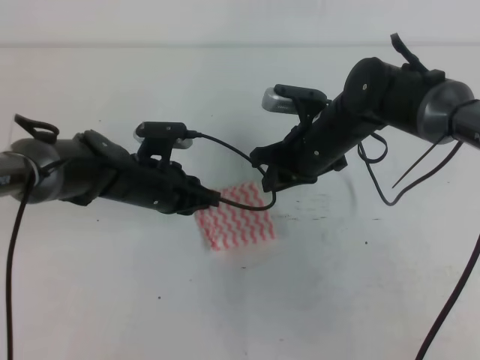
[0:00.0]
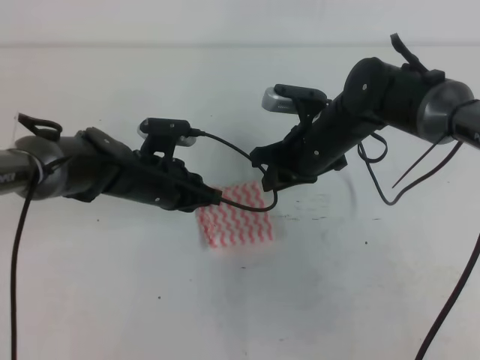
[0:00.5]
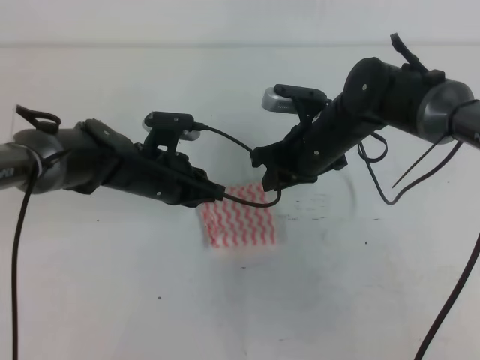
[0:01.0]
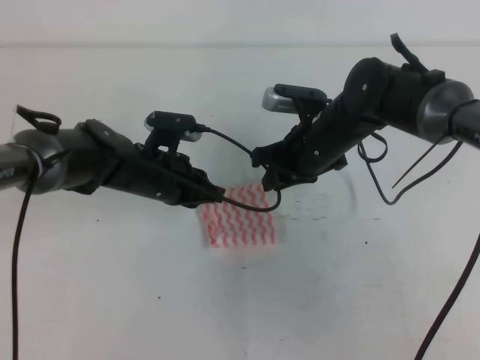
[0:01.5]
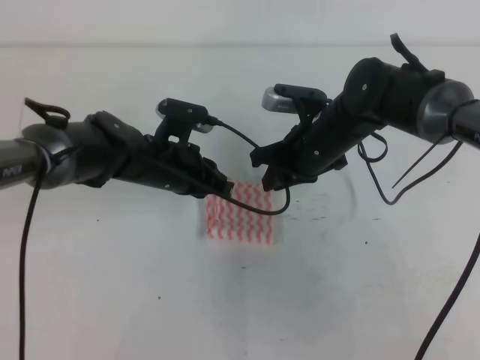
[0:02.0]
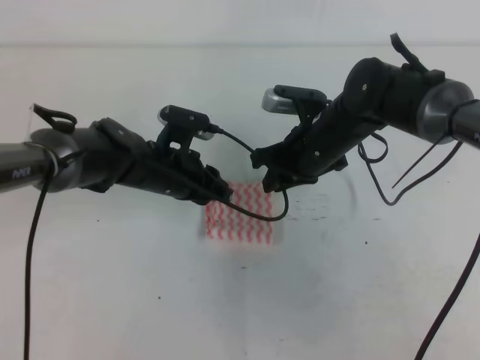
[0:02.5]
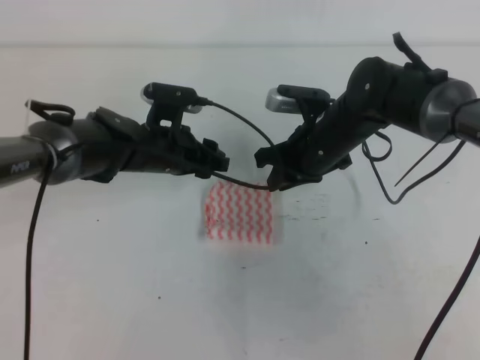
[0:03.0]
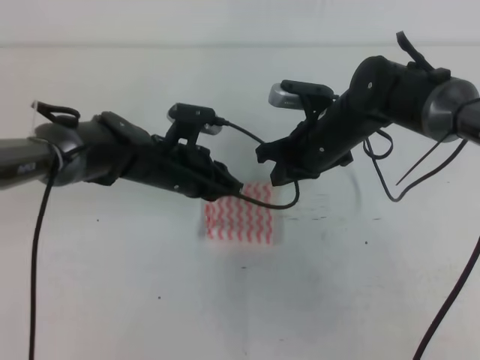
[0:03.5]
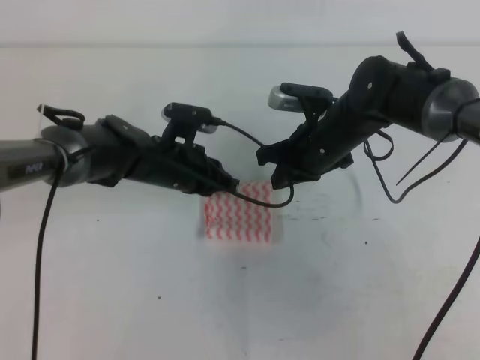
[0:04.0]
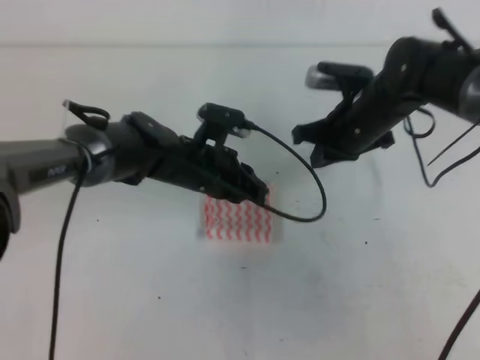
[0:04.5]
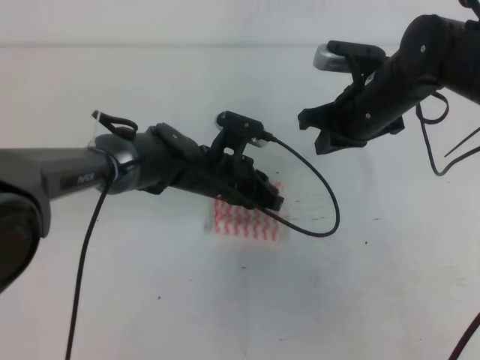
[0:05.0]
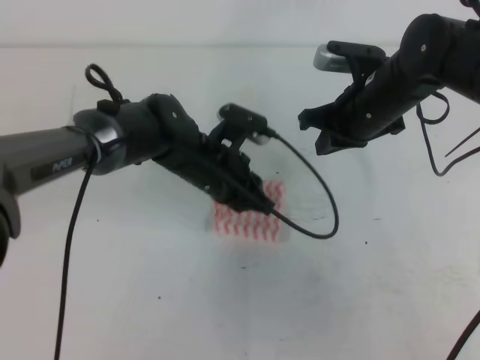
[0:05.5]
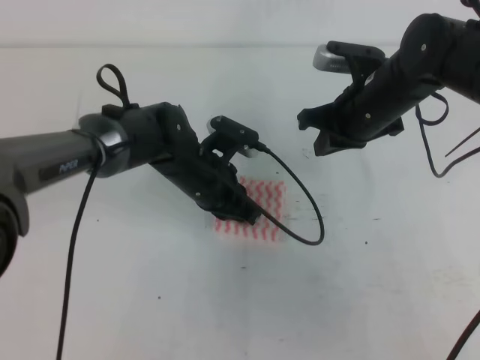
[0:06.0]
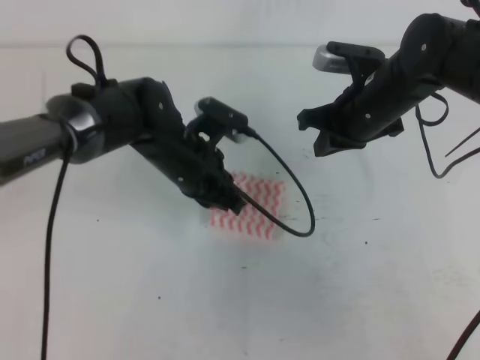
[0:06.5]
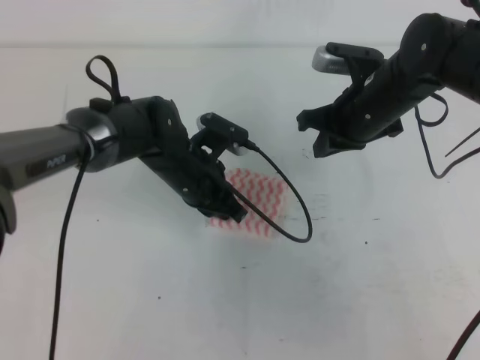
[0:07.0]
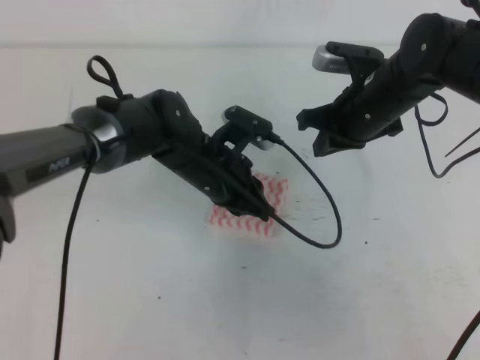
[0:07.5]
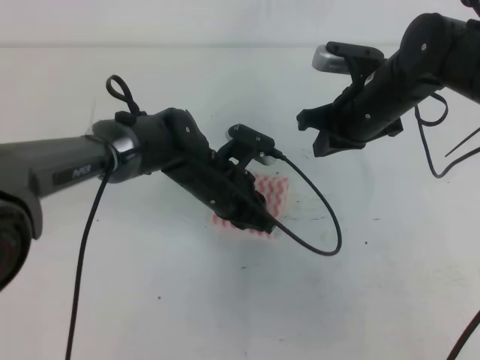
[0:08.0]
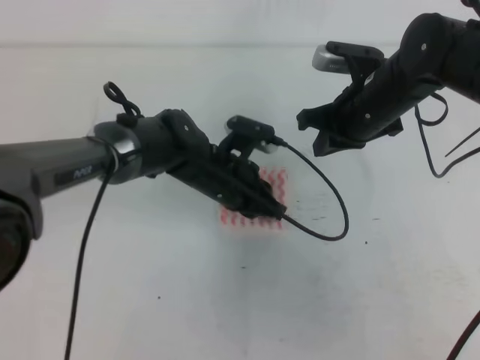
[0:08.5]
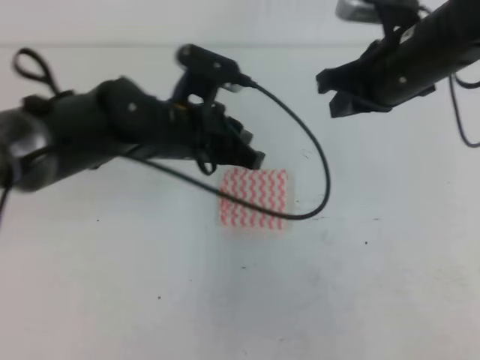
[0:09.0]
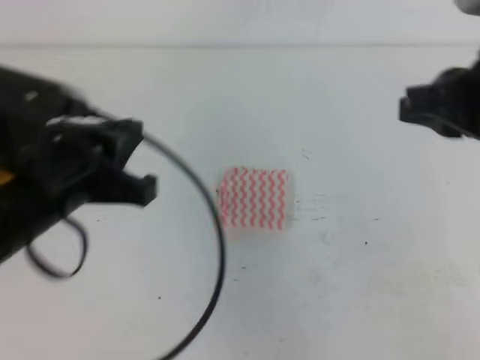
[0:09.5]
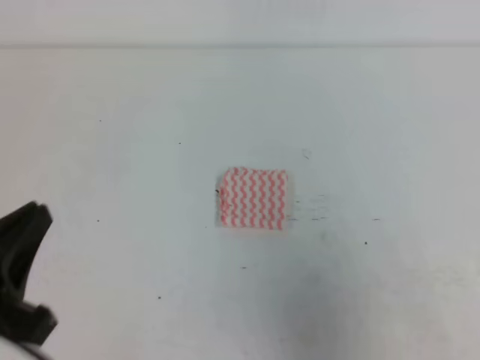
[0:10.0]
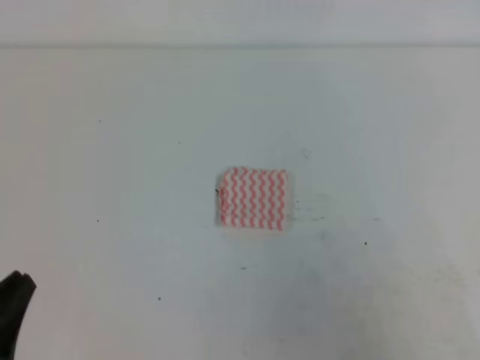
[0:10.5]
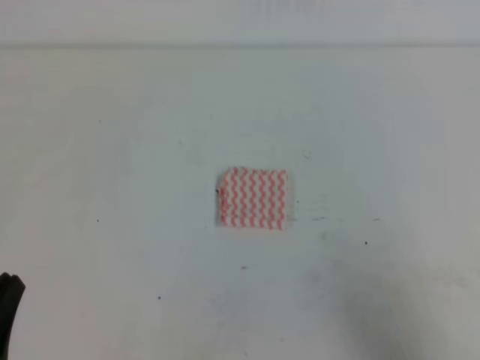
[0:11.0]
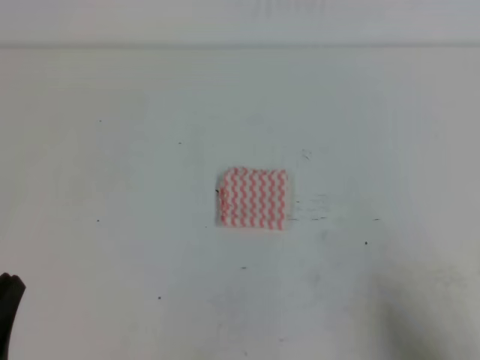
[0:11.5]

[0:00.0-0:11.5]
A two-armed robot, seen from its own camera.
0:00.0 to 0:02.0: The grippers stay close to where they were, moving slightly.
0:02.0 to 0:04.0: The left gripper opens and closes again.
0:04.0 to 0:06.0: The right gripper changes place by some 5 cm.
0:06.0 to 0:07.5: The grippers stay close to where they were, moving slightly.
0:07.5 to 0:09.5: The left gripper moves backward, upward and to the left, some 20 cm, while the right gripper moves backward and upward, approximately 20 cm.
0:09.5 to 0:11.5: The right gripper is displaced downward, backward and to the right by roughly 25 cm; the left gripper moves backward, downward and to the left, some 20 cm.
